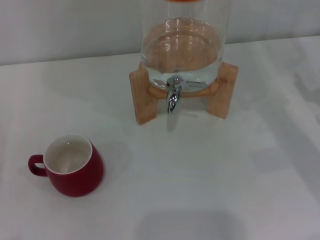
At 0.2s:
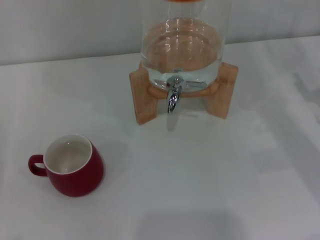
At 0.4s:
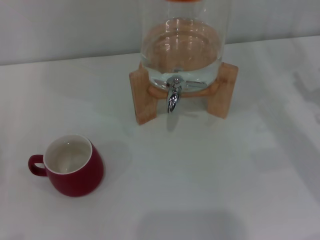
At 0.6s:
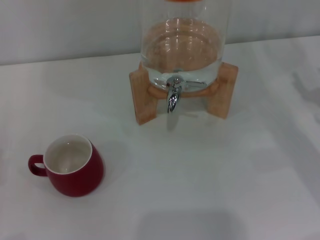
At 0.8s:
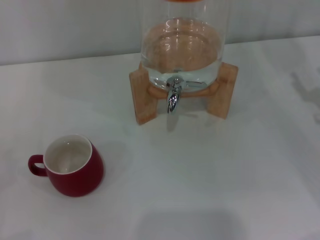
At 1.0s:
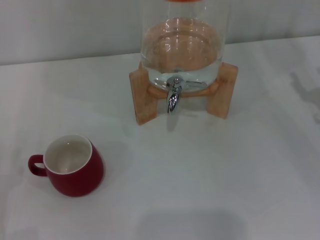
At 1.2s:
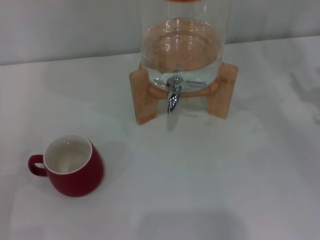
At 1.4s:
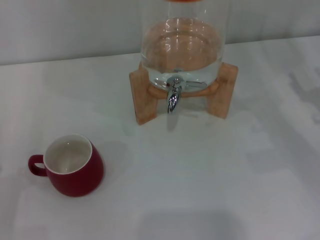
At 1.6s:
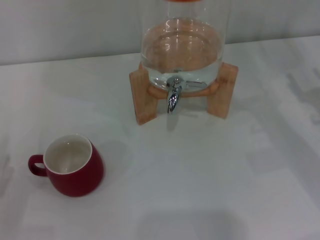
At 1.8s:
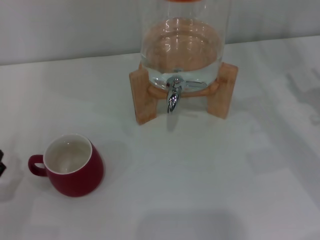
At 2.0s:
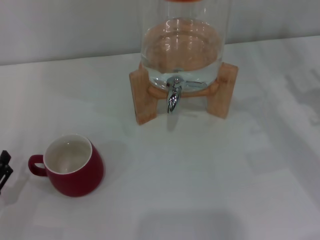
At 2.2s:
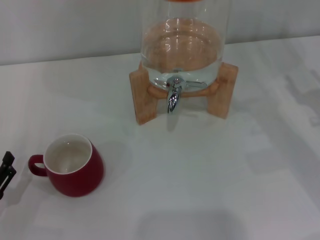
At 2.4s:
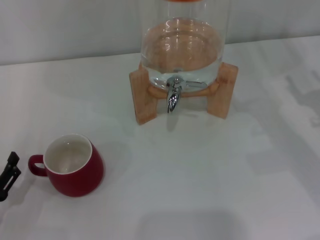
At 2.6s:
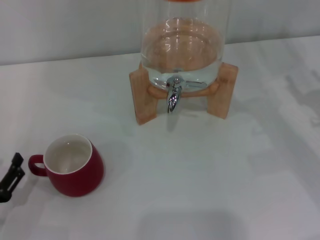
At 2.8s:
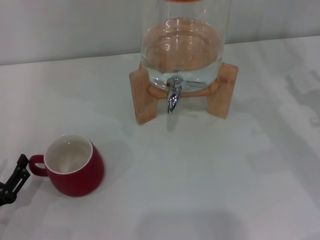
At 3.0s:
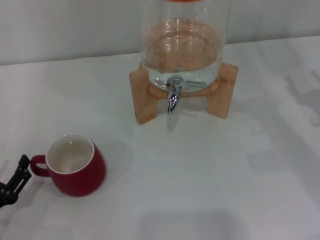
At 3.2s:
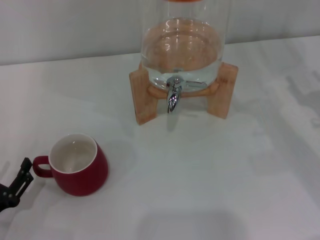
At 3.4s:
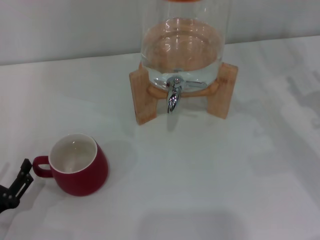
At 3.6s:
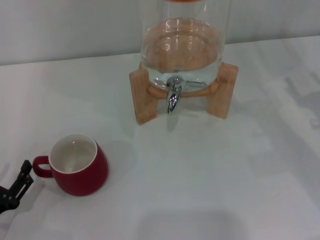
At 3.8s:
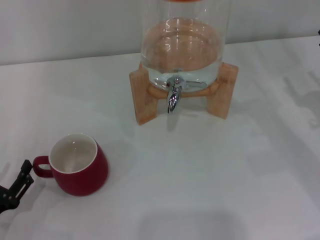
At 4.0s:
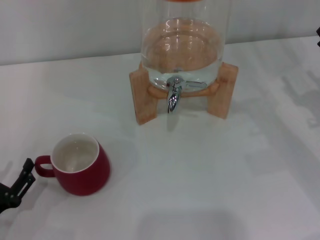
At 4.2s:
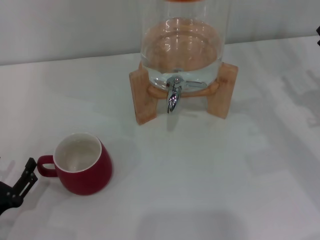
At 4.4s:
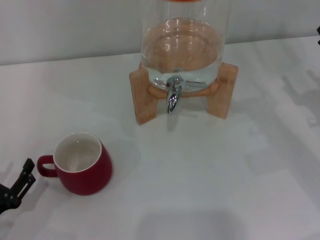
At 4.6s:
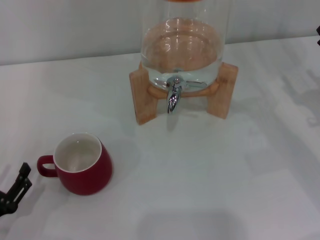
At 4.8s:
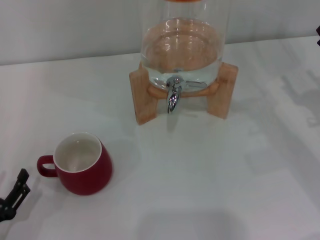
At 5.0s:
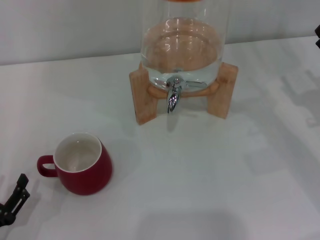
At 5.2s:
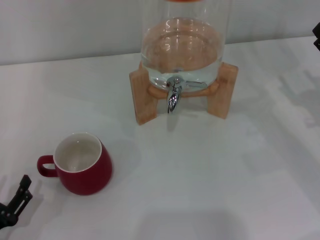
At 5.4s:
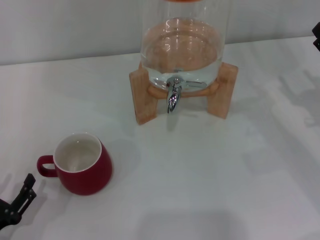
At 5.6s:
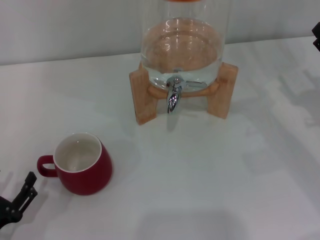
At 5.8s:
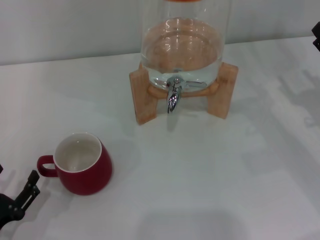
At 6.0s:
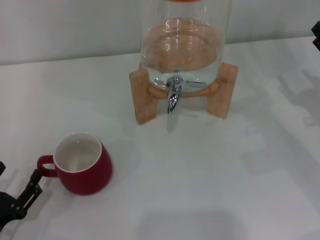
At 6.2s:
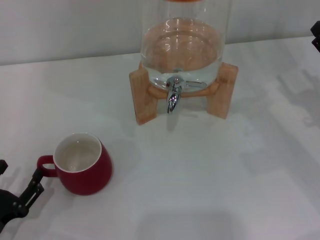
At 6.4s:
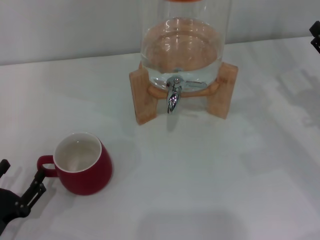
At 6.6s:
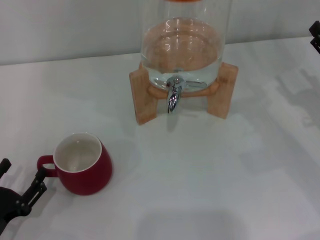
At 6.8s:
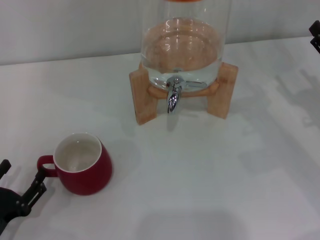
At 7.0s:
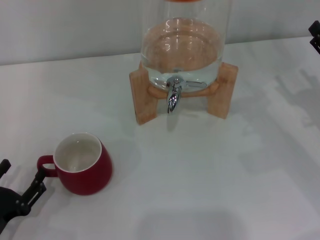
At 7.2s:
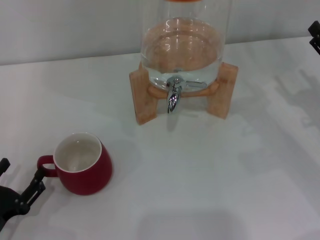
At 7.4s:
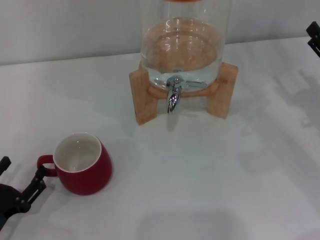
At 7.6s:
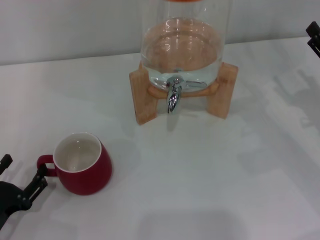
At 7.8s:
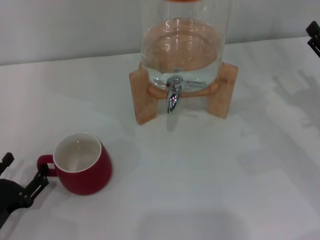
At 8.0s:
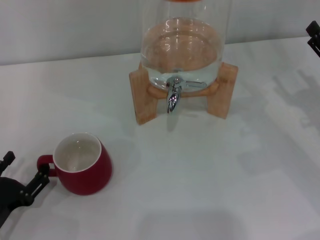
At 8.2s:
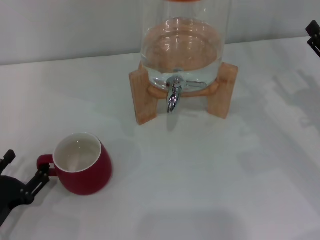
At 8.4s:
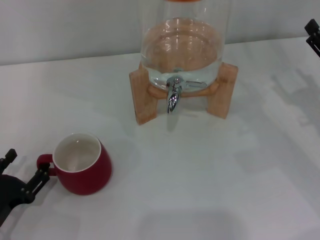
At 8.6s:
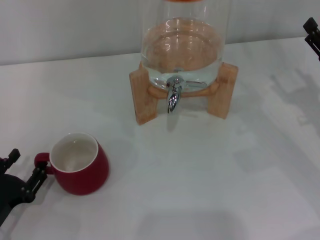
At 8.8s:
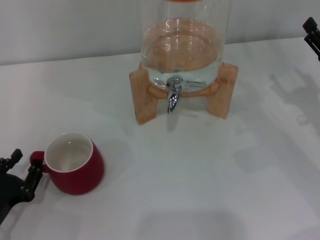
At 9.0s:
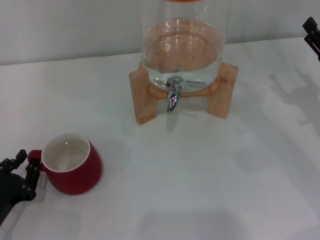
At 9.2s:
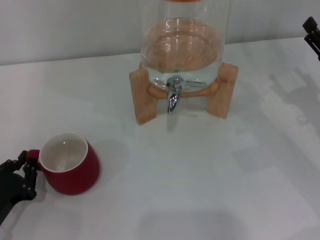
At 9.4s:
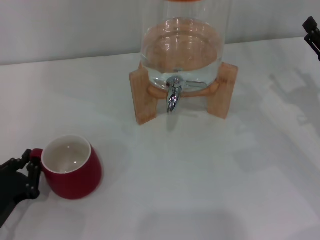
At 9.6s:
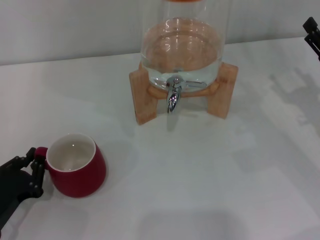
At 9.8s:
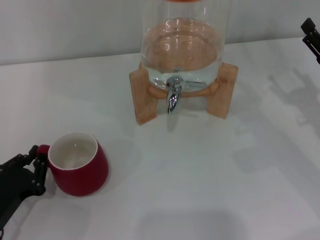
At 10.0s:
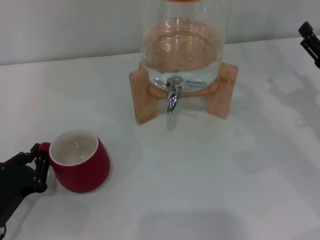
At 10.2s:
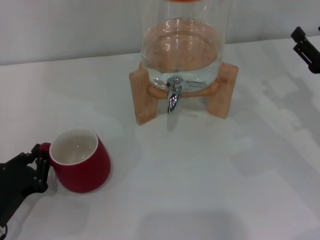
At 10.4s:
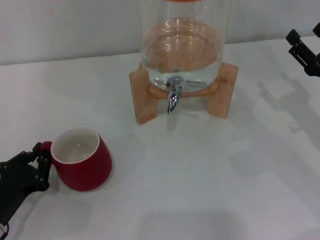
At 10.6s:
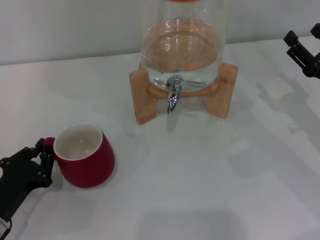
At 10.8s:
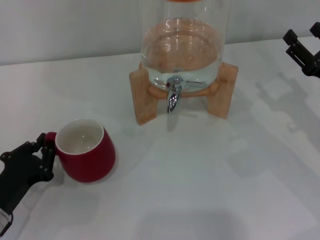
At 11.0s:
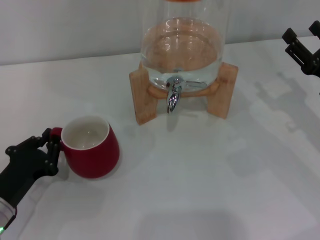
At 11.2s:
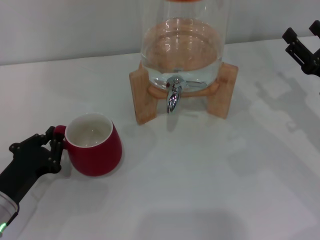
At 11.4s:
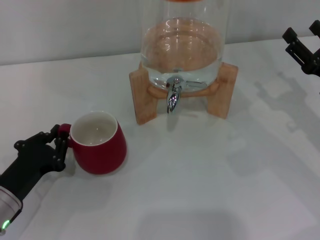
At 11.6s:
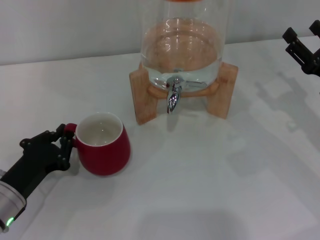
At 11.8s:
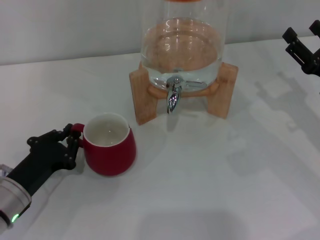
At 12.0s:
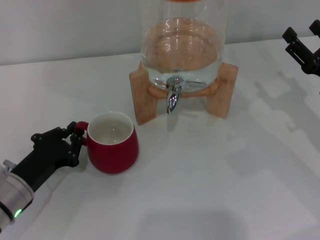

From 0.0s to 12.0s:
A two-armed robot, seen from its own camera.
Task of the whole recording: the left gripper pick up the red cup and place it horizontally under the faucet, the right gripper turn on the faucet to fill the cup, and then turn off the faucet.
From 1.6s to 3.0s: There are only small adjustments of the grippers.
From 3.0s to 4.4s: Both grippers stay about where they are.
From 4.4s to 7.6s: The grippers move only a little.
From 7.6s to 9.0s: The left gripper closes up.
From 9.0s to 10.4s: The left gripper closes its fingers.
From 10.4s to 12.0s: The left gripper moves about 5 cm.

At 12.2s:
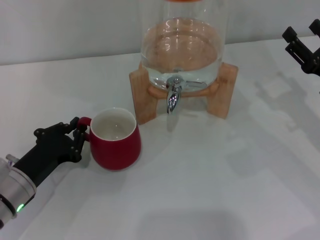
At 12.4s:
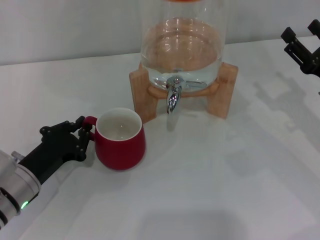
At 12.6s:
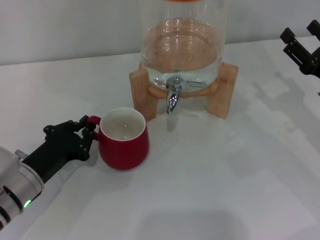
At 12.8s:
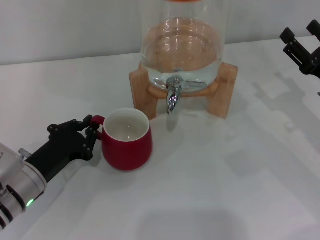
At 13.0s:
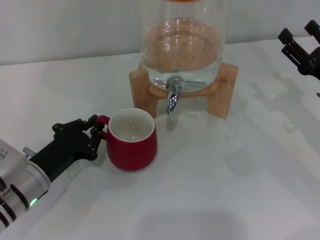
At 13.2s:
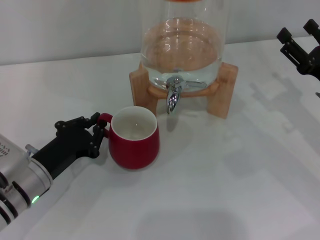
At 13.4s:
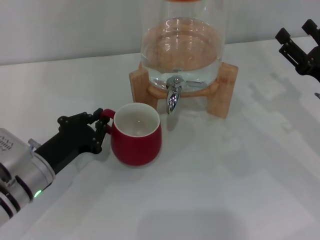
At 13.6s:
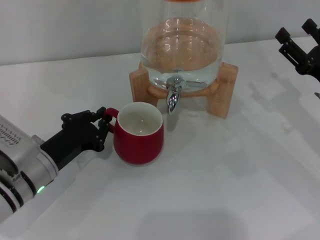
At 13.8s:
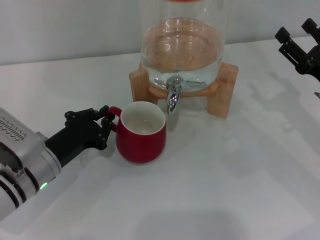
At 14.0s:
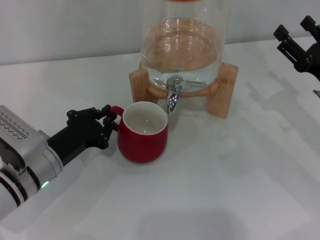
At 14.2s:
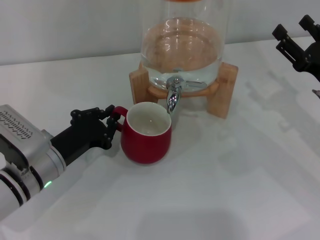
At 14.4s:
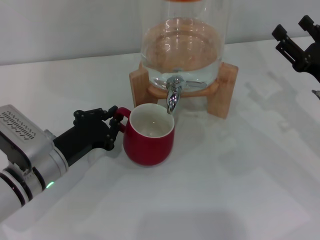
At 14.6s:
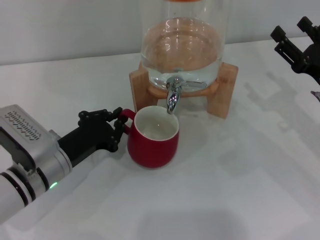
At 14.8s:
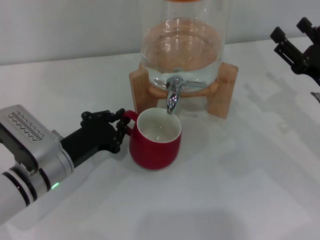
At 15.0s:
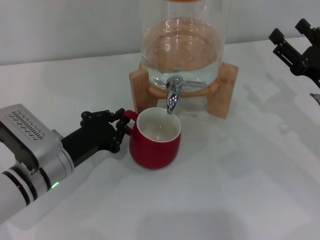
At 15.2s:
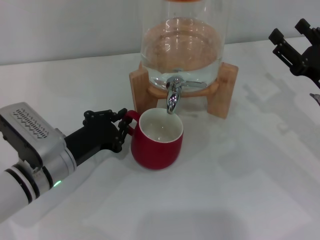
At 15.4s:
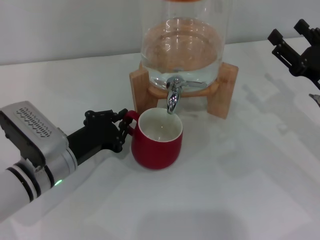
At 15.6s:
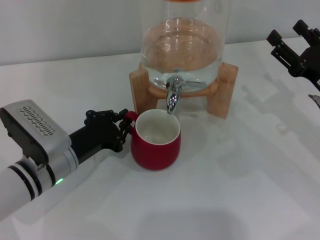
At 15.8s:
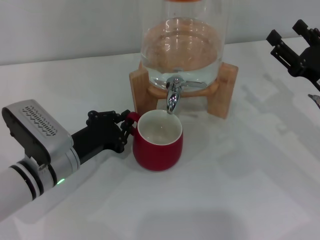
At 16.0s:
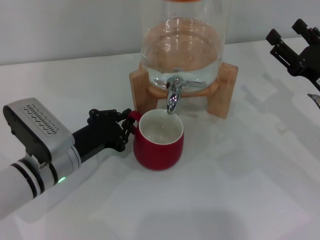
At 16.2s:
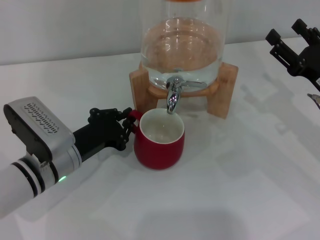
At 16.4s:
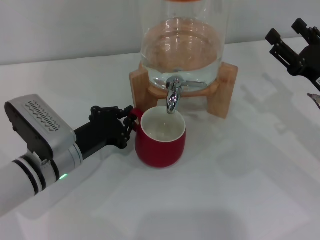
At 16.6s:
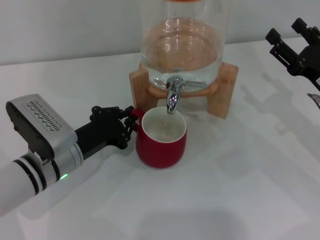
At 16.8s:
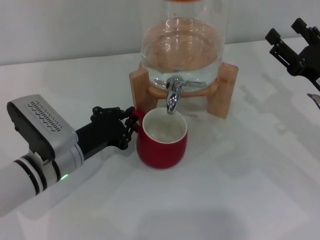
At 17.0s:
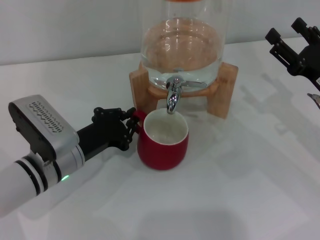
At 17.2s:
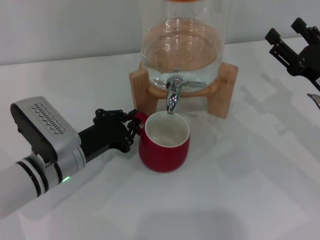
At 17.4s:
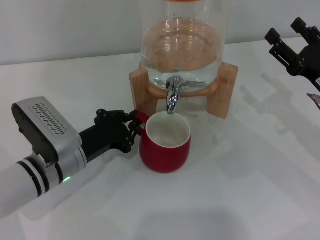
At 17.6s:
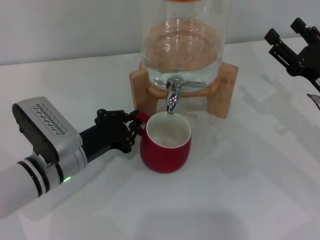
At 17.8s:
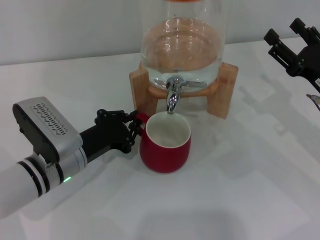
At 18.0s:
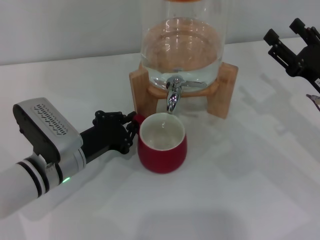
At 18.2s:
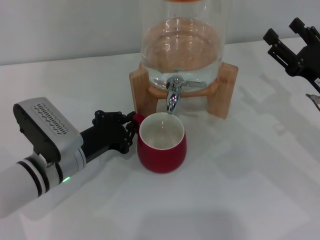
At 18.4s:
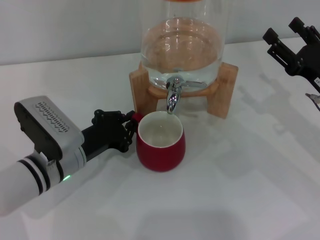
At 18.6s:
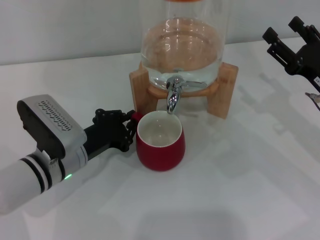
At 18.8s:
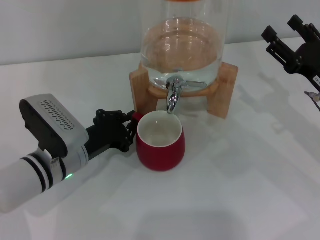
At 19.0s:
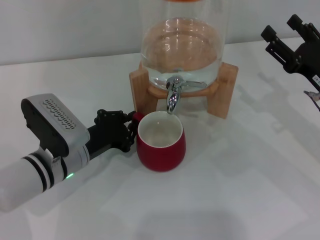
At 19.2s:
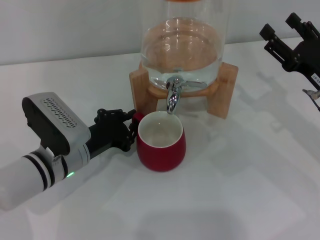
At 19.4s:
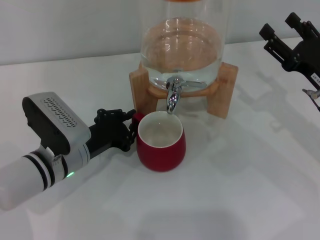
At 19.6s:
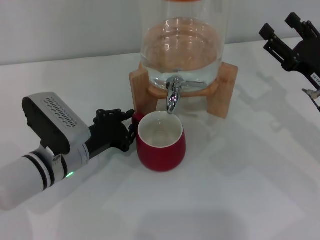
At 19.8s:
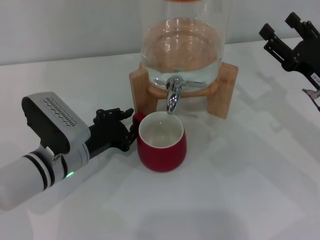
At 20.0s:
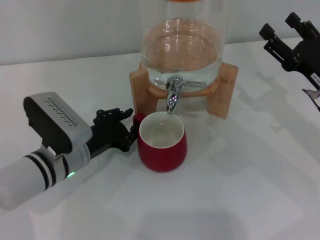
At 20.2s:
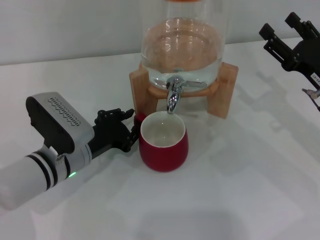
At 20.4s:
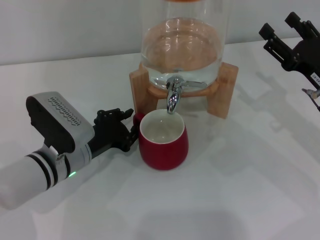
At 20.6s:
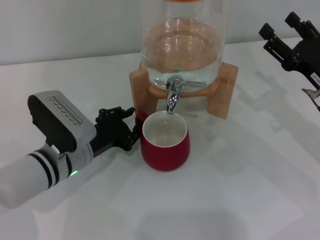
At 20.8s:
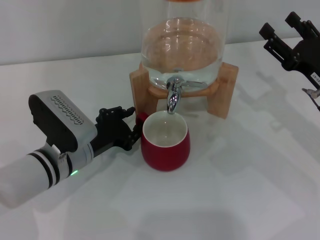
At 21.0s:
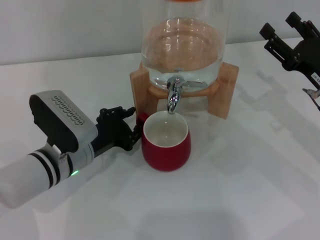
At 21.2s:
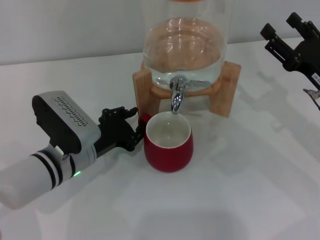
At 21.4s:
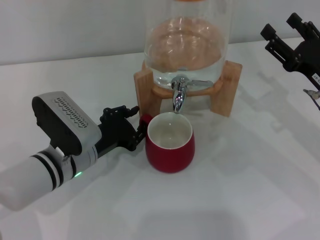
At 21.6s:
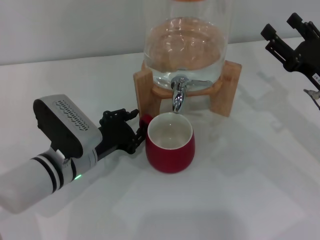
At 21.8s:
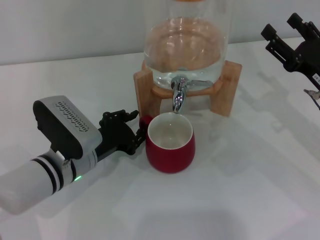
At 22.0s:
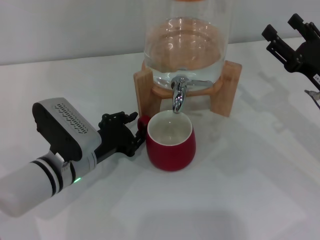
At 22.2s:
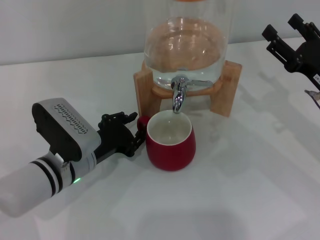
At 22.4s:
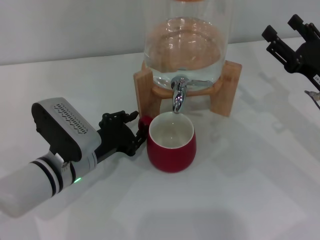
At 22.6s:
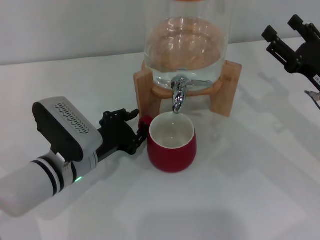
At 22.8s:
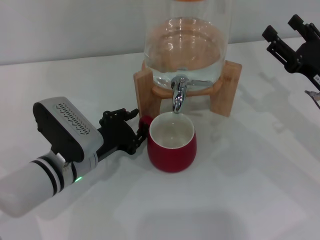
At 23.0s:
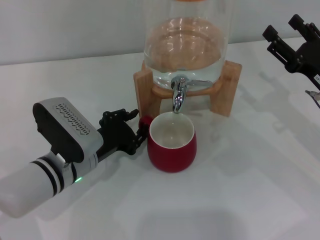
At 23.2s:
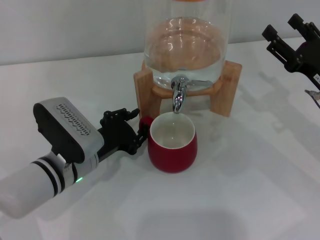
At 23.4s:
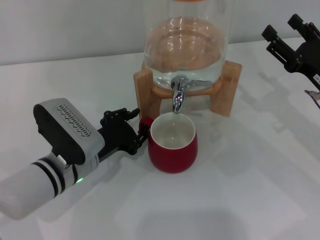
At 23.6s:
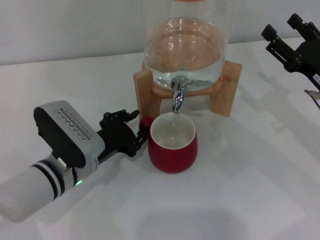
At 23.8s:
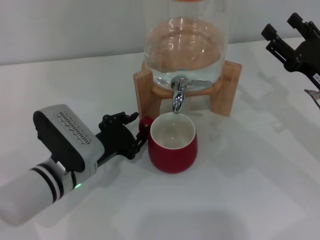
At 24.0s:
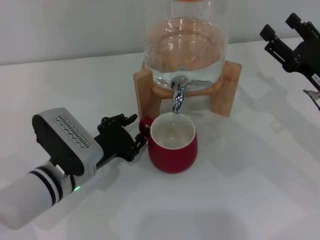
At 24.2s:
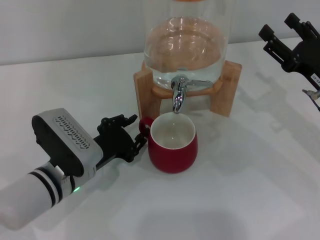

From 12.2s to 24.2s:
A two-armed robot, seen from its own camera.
Task of the whole recording: the left gripper pick up the red cup and place it horizontally under the faucet, the right gripper turn on the faucet to fill the cup, and then turn off the faucet.
From 12.2s to 13.8s: There are only small adjustments of the grippers.
From 13.8s to 16.6s: The grippers stay close to where they were, moving slightly.
From 16.6s to 18.2s: Both grippers stay put.
From 18.2s to 19.8s: Neither gripper changes place.
From 19.8s to 21.2s: Both grippers stay about where they are.
From 21.2s to 22.6s: The two grippers keep their place.
From 22.6s to 24.2s: There are only small adjustments of the grippers.
